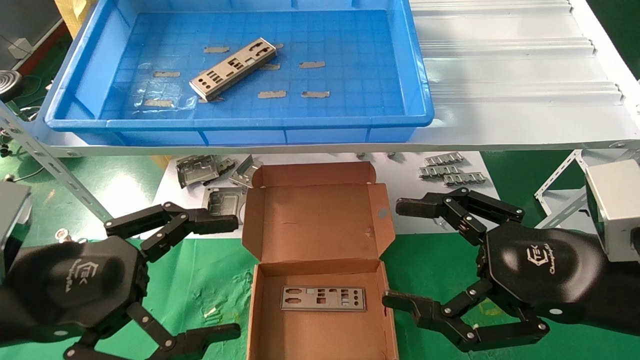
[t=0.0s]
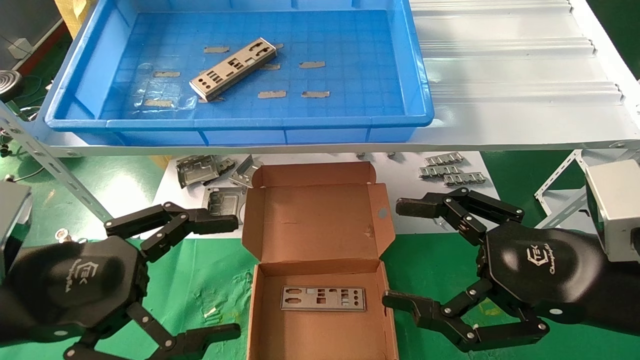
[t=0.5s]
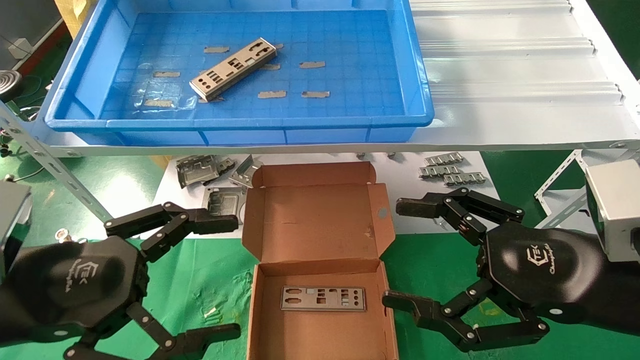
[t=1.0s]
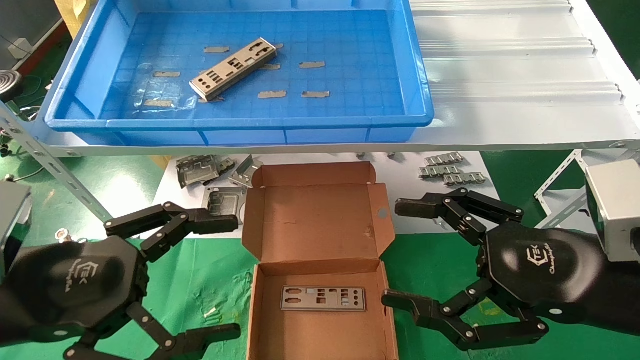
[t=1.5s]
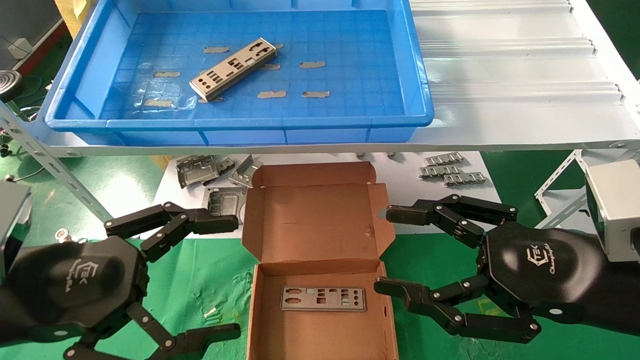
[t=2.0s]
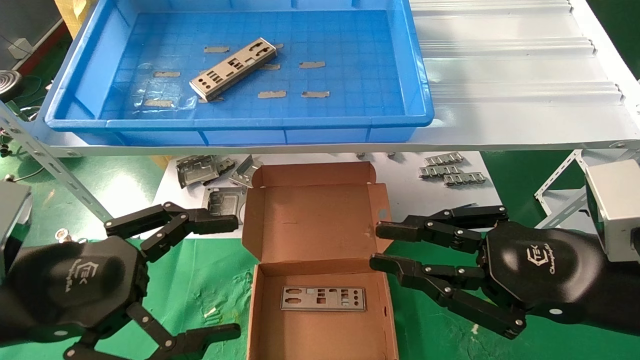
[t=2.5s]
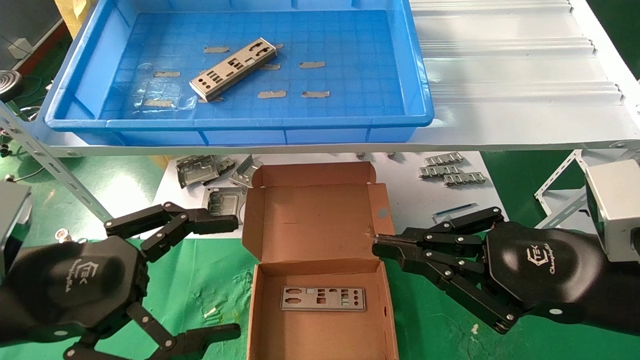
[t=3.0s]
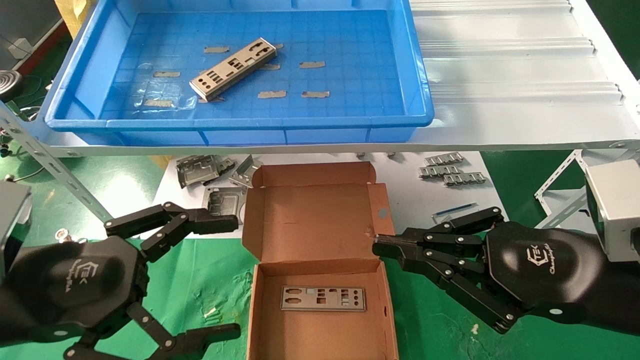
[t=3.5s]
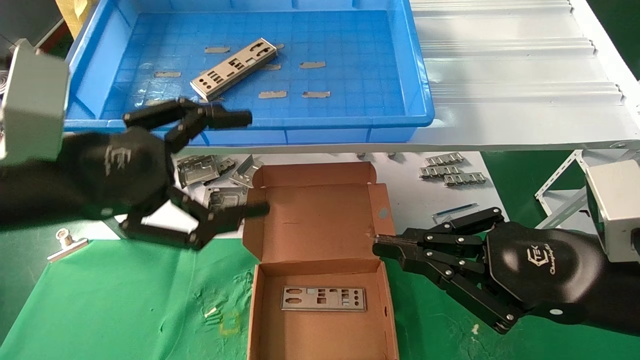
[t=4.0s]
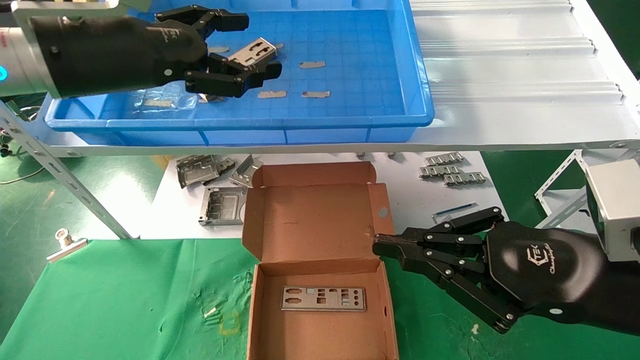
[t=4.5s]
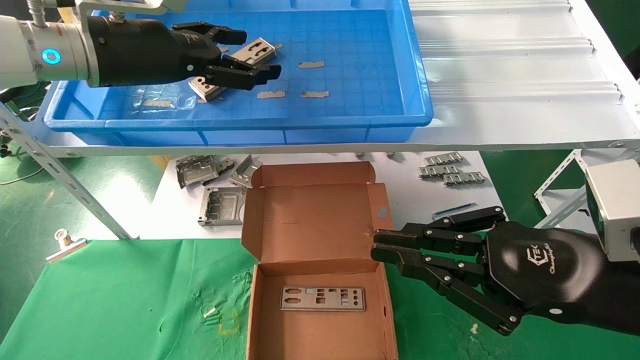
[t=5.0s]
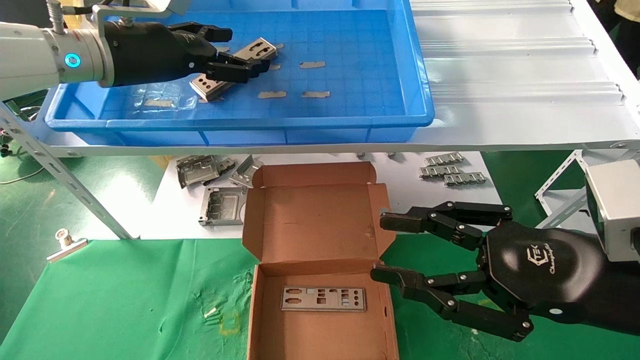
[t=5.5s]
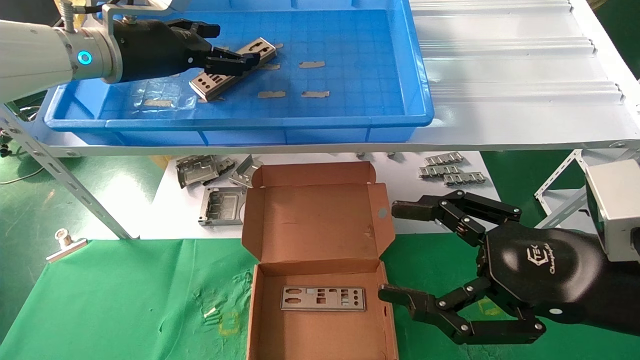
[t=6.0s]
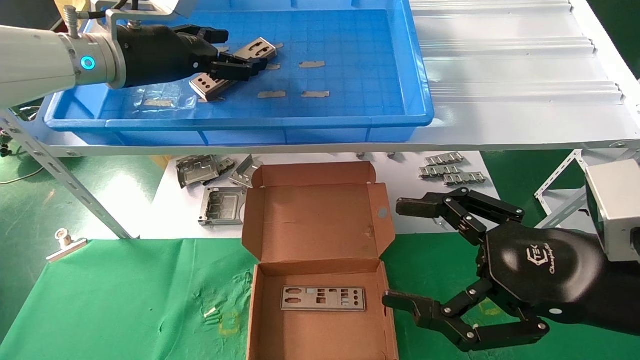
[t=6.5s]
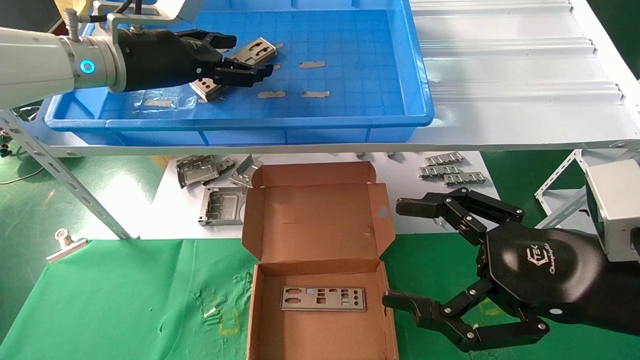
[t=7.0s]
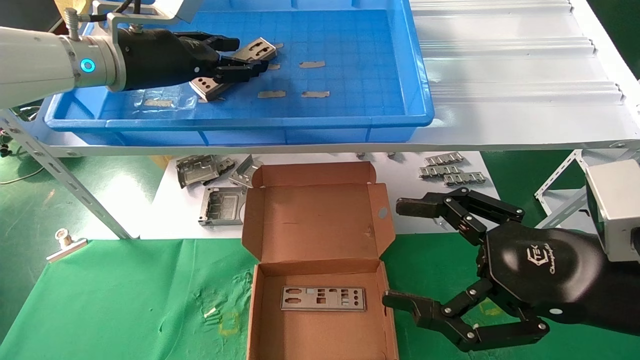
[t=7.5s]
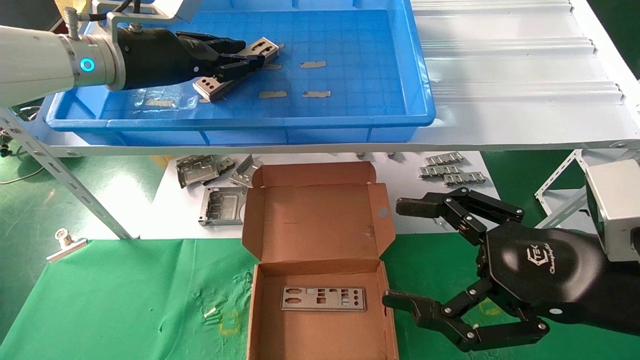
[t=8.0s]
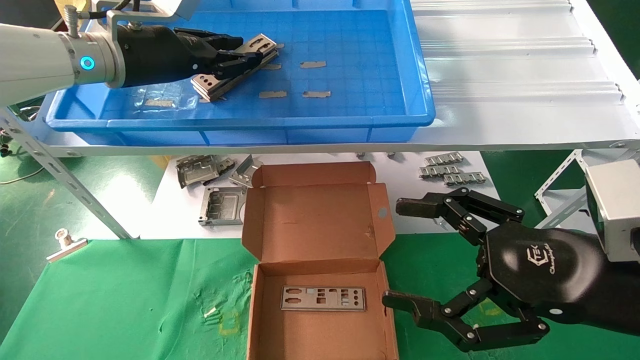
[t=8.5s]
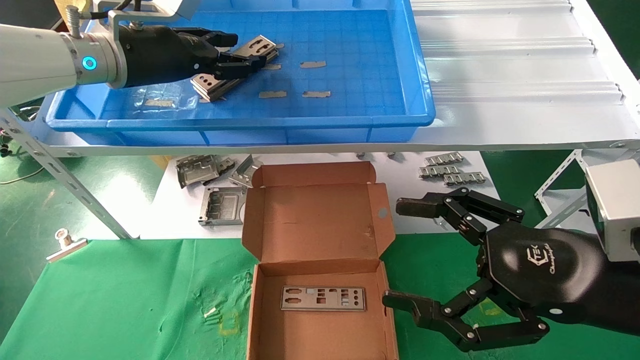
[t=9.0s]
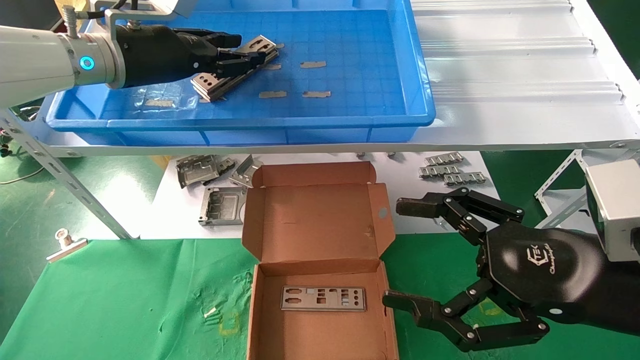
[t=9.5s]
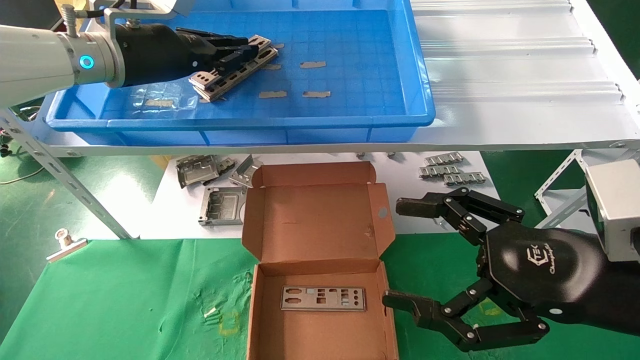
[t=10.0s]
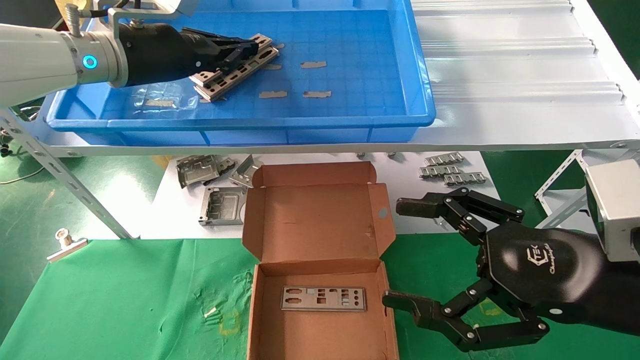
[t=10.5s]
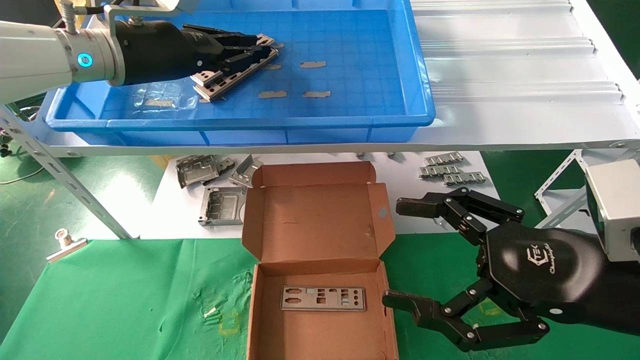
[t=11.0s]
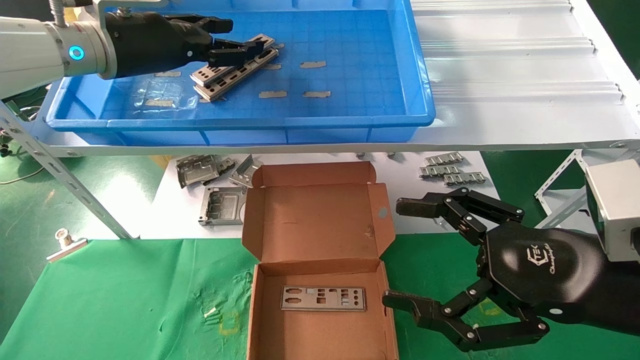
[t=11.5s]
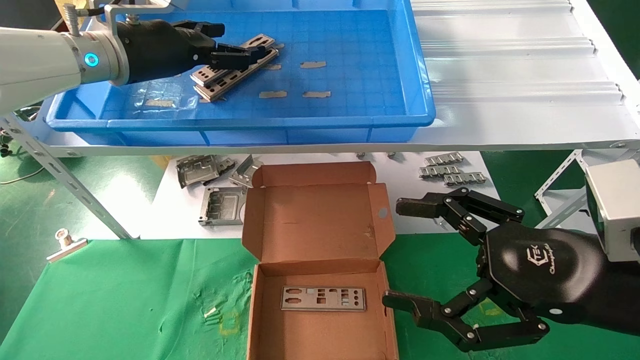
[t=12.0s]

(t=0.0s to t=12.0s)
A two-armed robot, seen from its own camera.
Task of the whole recording: pick up the parts on the tray and put them in the cardboard box.
t=0.0s - t=2.0s: Neither gripper changes place.
t=2.0s - t=4.0s: The left gripper shifts roughly 10 cm upward. The right gripper closes.
t=4.0s - t=6.0s: The left gripper shifts about 20 cm forward and upward; the right gripper opens up.
t=6.0s - t=8.0s: The left gripper closes.
t=8.0s - t=10.0s: Both grippers stay put.
t=10.0s - t=12.0s: The left gripper opens.

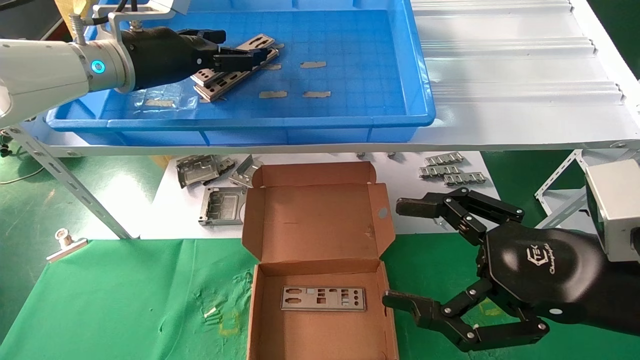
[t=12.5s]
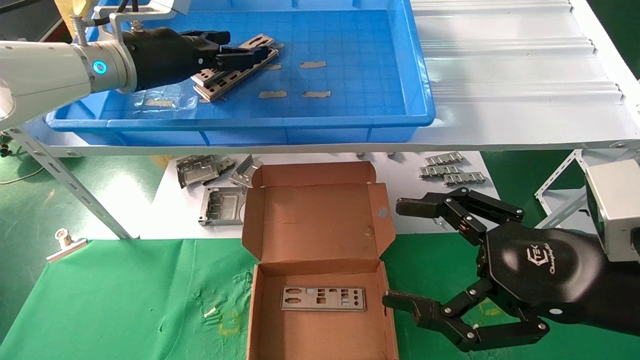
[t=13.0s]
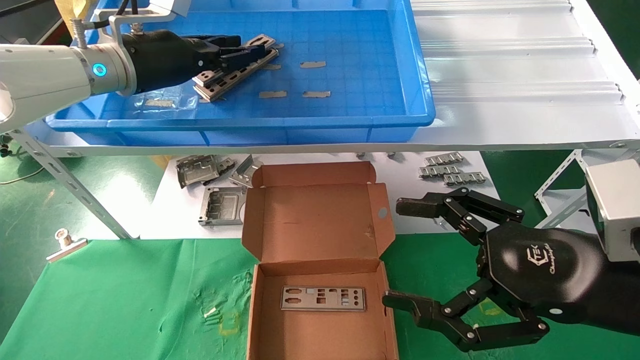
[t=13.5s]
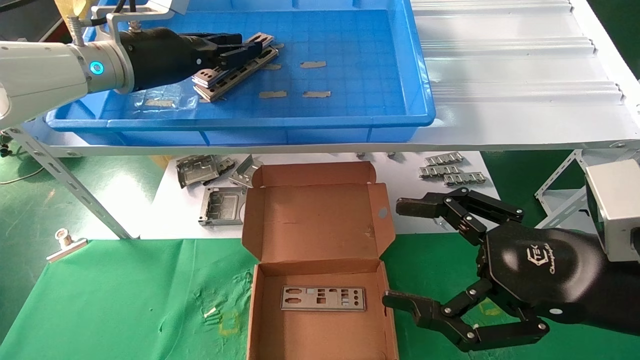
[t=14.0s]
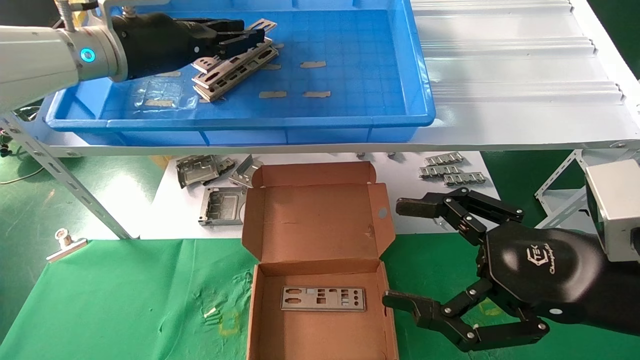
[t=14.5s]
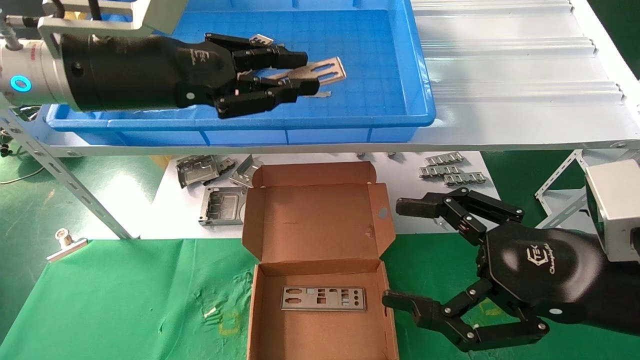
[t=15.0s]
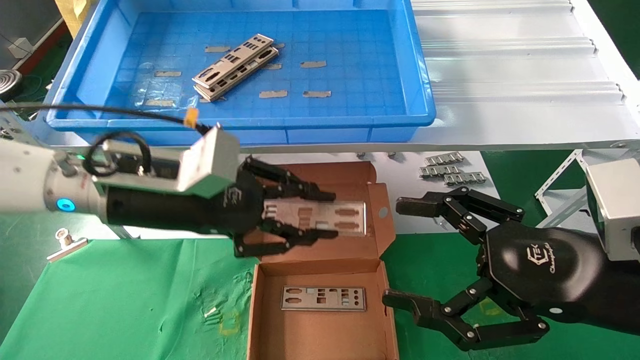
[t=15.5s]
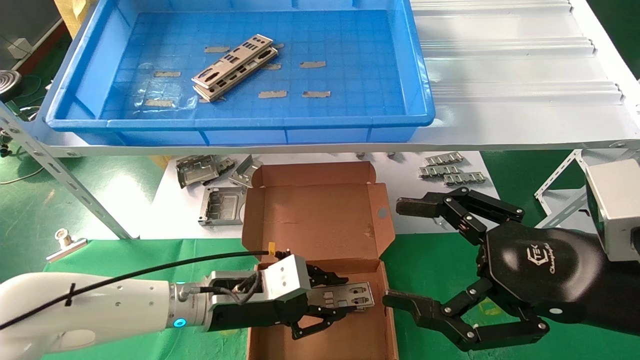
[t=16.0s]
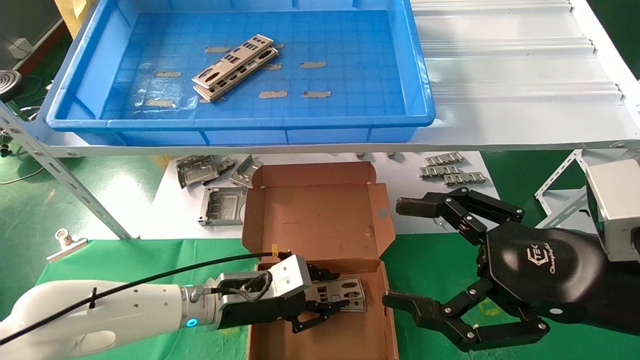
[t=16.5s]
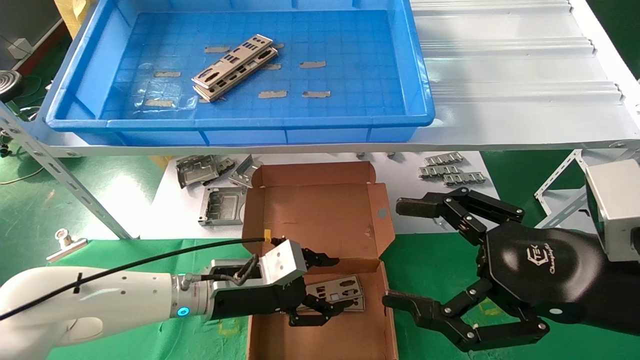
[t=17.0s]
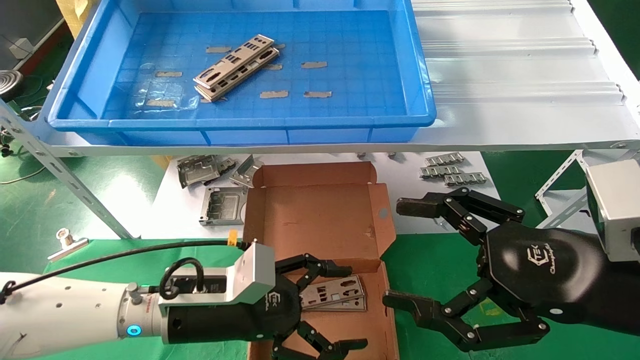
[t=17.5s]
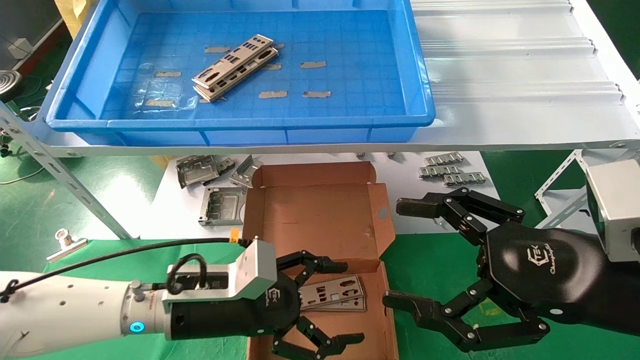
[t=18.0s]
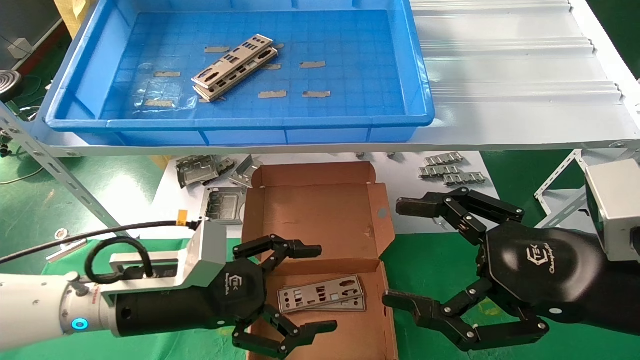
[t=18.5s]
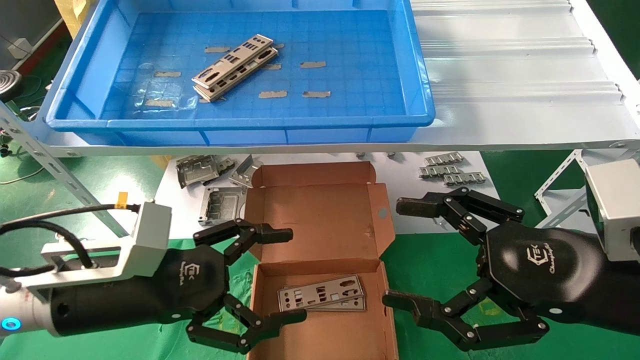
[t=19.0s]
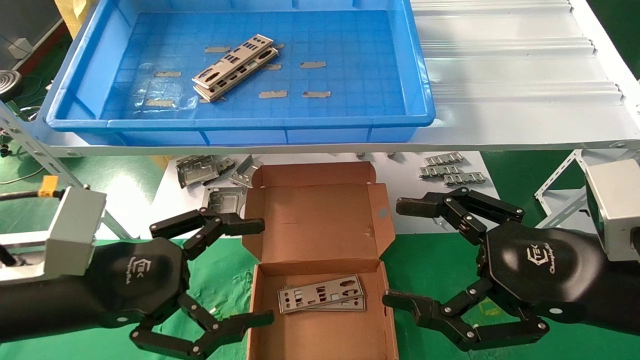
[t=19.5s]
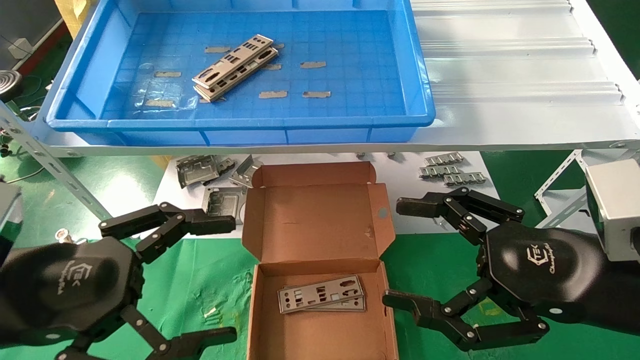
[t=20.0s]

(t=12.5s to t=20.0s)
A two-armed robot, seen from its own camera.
Task of the whole recording: pick up the parts on the tray and put them in the cardboard box.
Step, t=14.0s - t=16.5s: Place the IO bracket into the ingredient slot.
t=12.5s - t=14.5s: The left gripper closes its fingers.
t=14.5s - t=16.5s: The left gripper goes about 35 cm downward.
t=16.5s - t=18.0s: The left gripper goes roughly 5 cm backward, and opens its fingers.
t=18.0s - t=20.0s: The left gripper heads backward, to the left and upward, covering roughly 20 cm.
